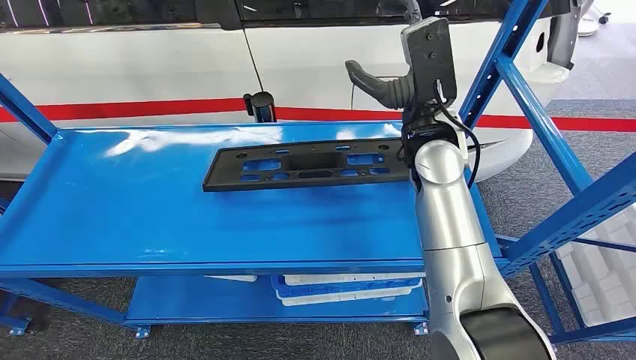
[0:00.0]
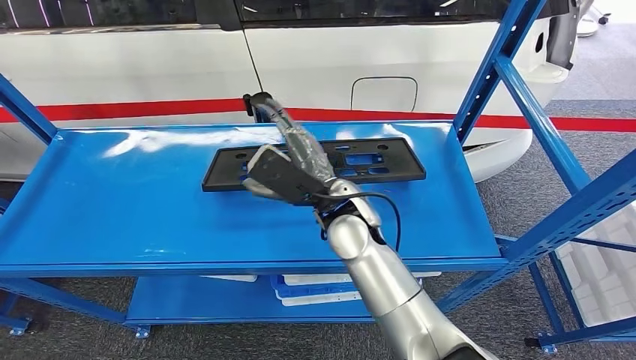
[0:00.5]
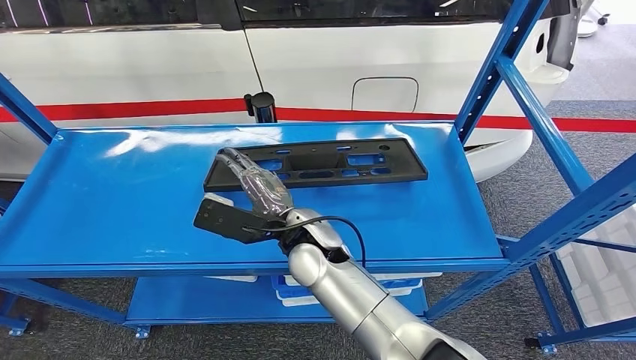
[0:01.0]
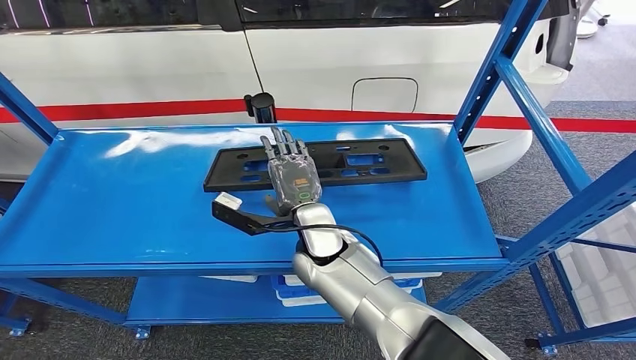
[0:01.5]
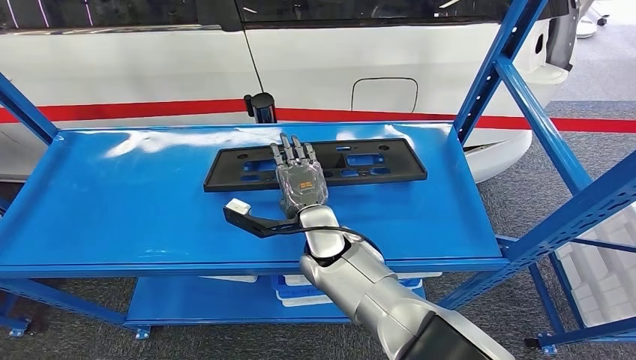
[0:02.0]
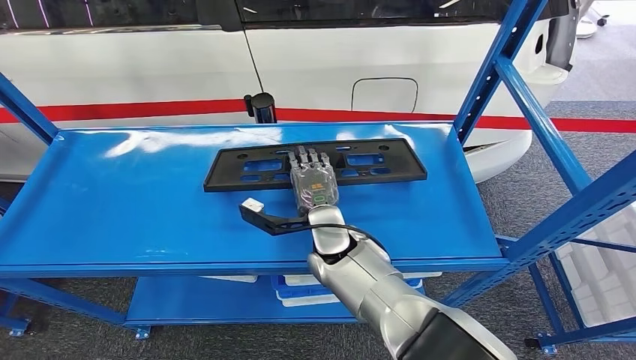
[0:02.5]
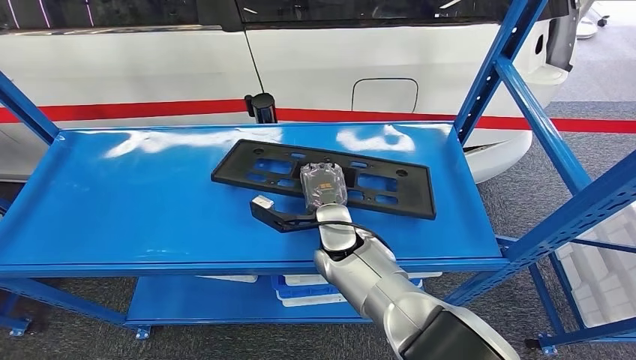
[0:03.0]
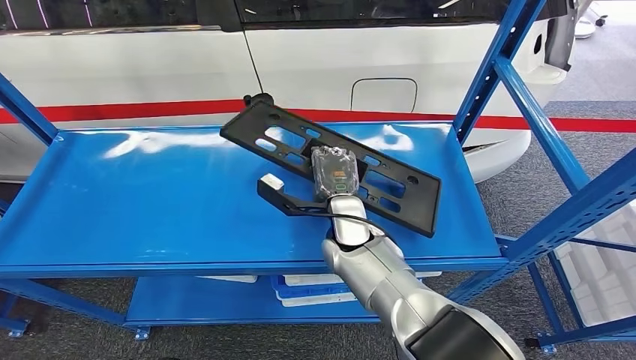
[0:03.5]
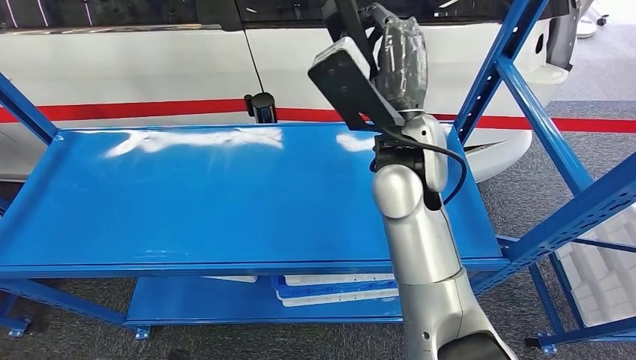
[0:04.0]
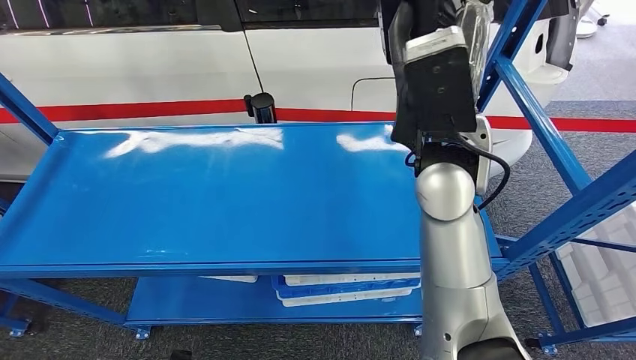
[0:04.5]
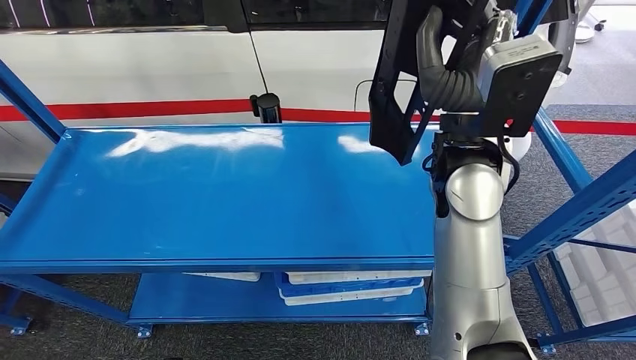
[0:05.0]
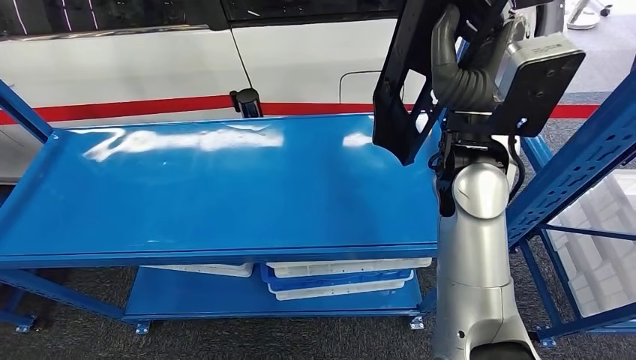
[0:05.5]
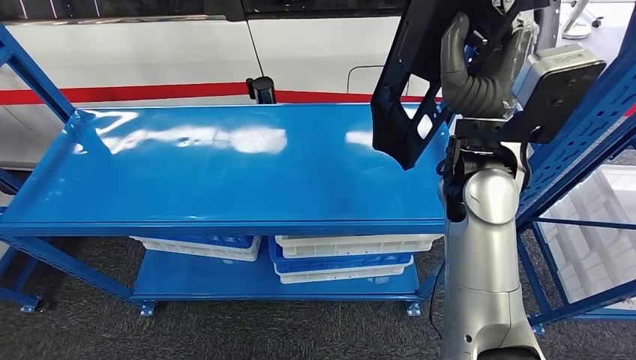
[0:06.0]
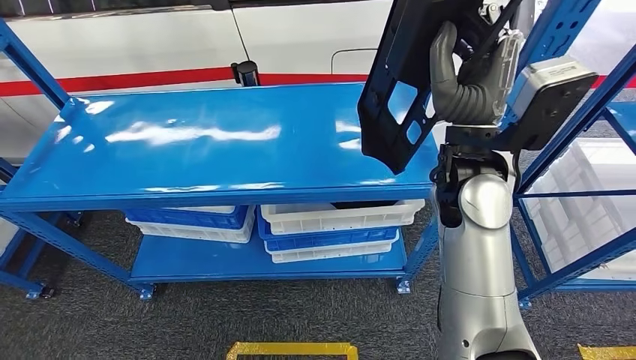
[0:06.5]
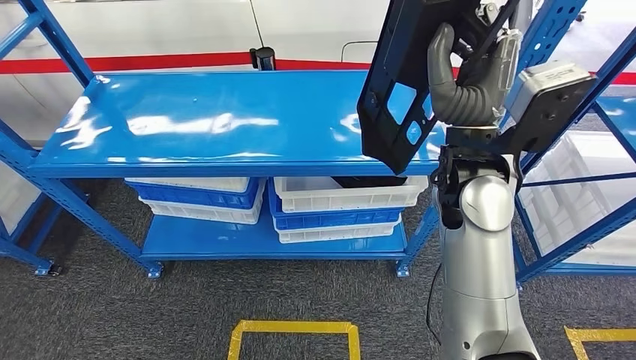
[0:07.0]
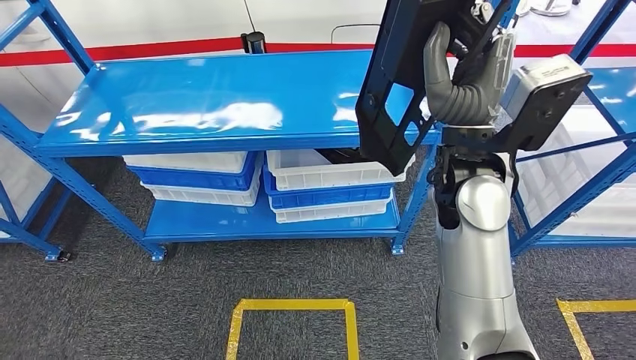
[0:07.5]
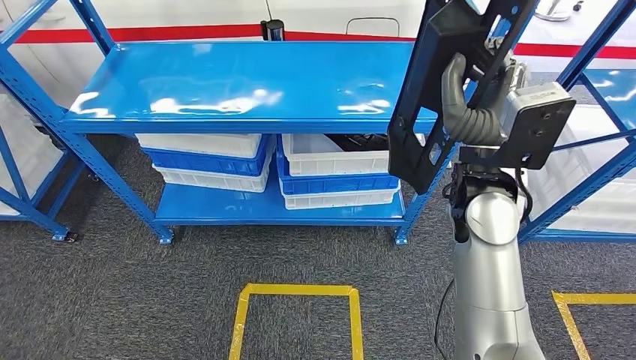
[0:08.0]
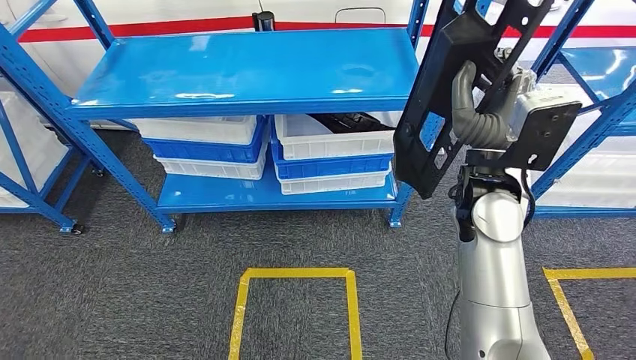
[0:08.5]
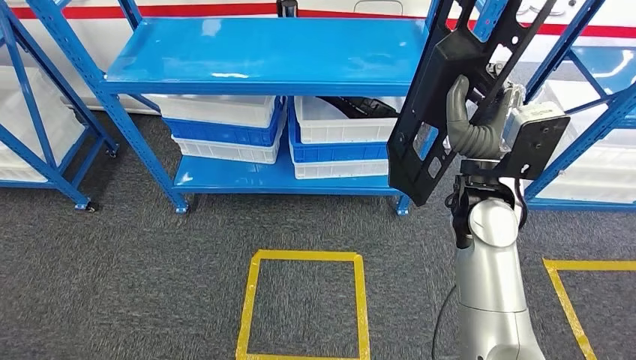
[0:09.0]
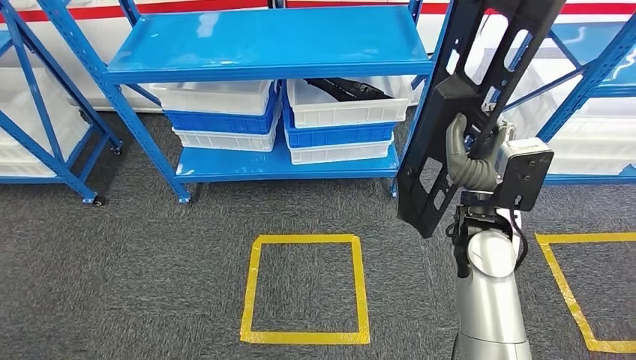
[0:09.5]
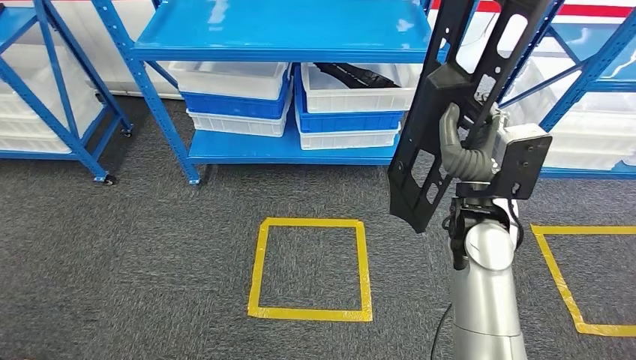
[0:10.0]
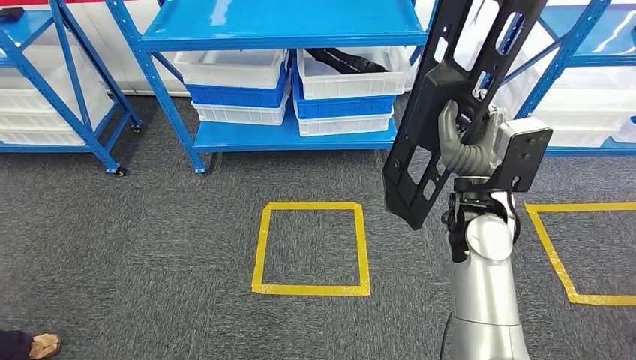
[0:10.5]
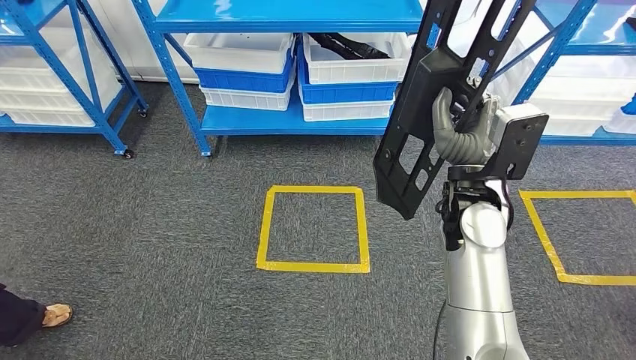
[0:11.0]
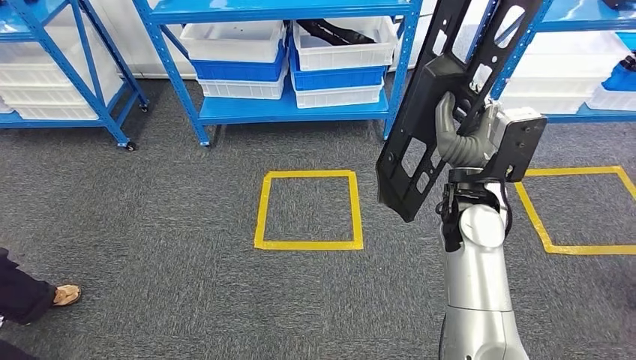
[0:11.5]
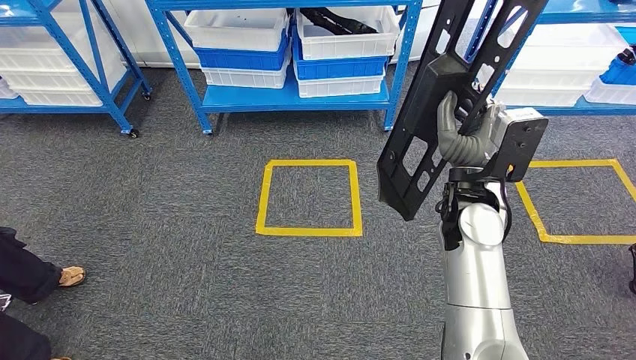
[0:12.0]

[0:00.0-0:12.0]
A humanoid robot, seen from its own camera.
Step, 0:00.0 to 0:04.0: Pick up the large material from the shelf.
0:02.0 to 0:04.0: The right hand is displaced upward by roughly 20 cm.

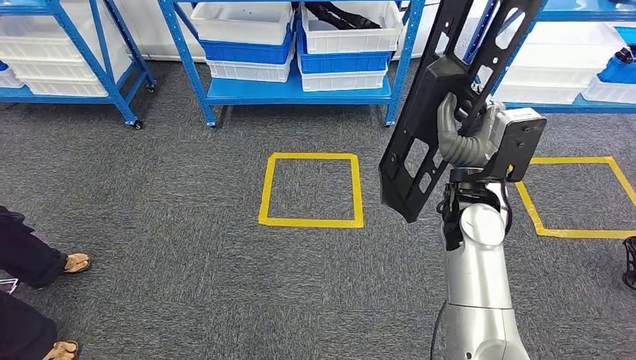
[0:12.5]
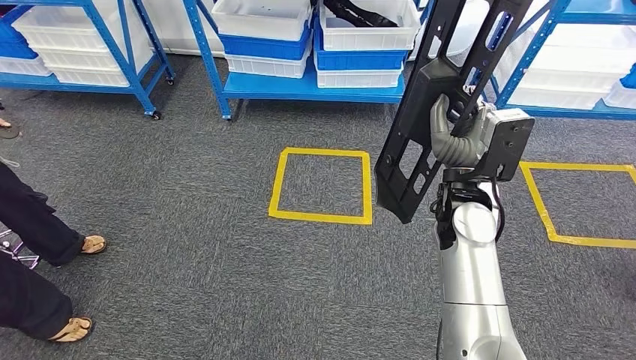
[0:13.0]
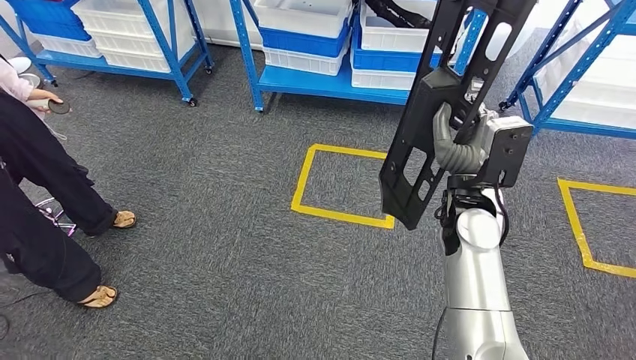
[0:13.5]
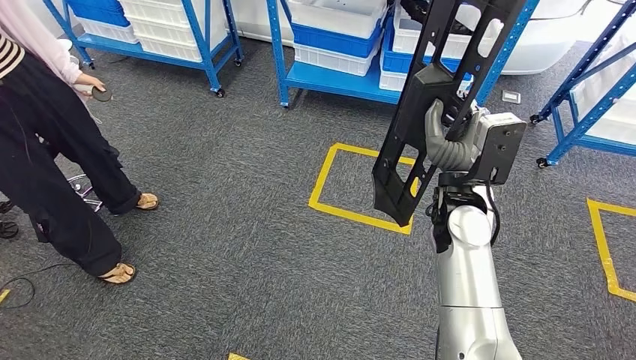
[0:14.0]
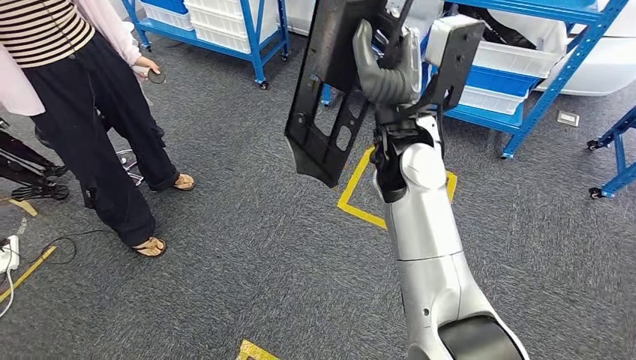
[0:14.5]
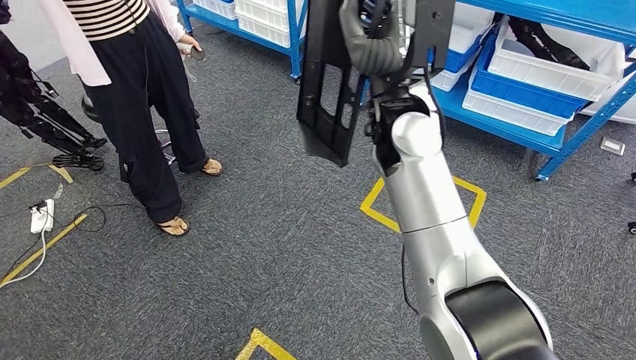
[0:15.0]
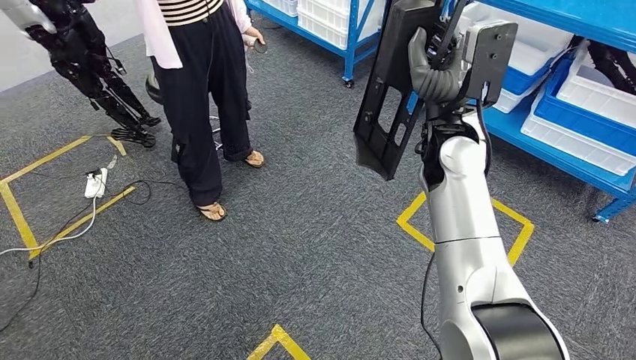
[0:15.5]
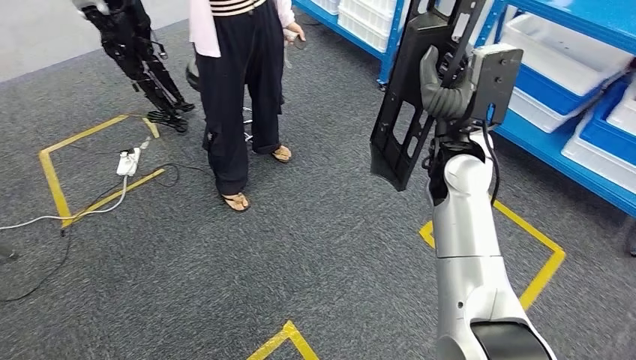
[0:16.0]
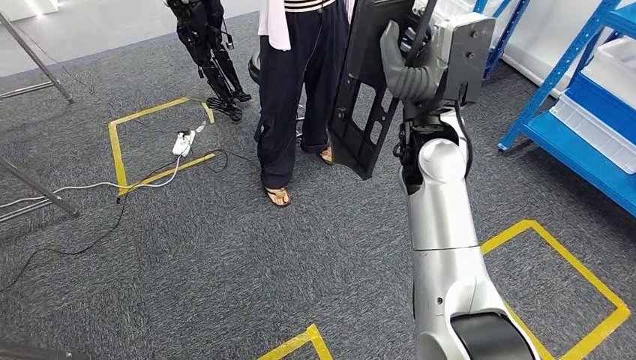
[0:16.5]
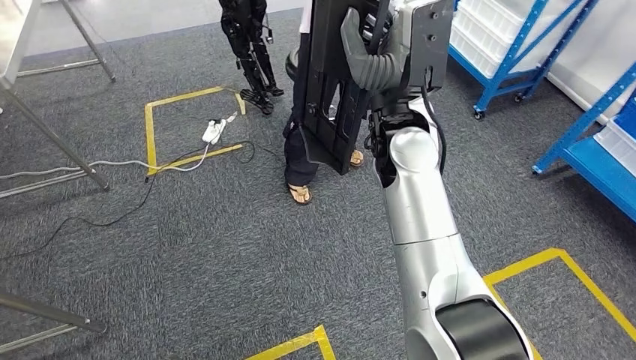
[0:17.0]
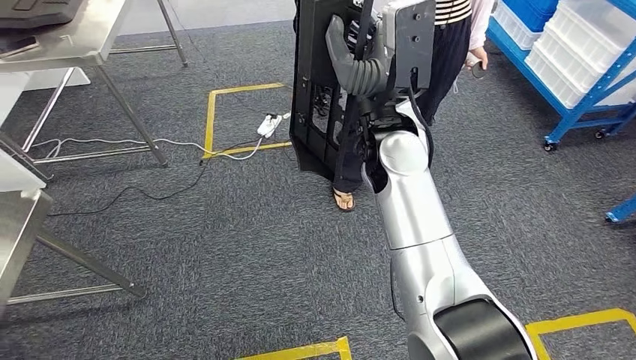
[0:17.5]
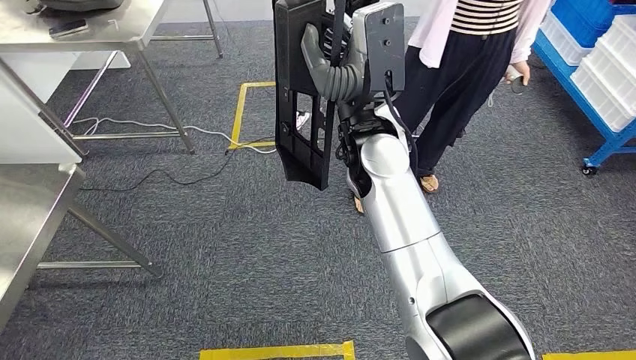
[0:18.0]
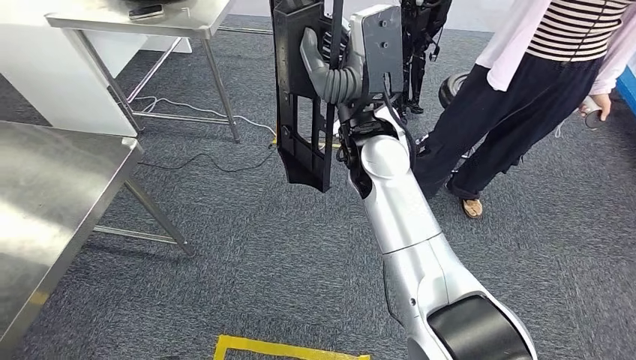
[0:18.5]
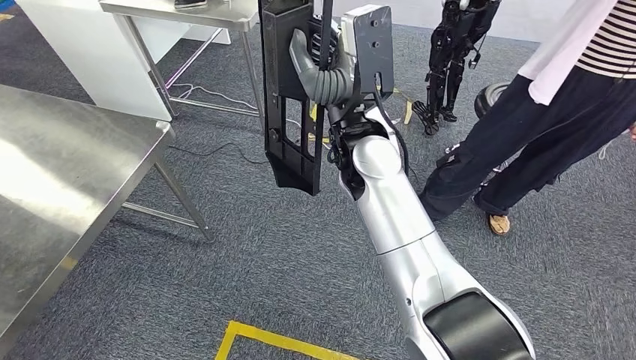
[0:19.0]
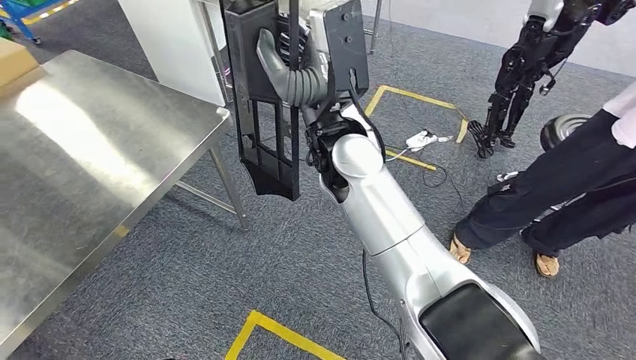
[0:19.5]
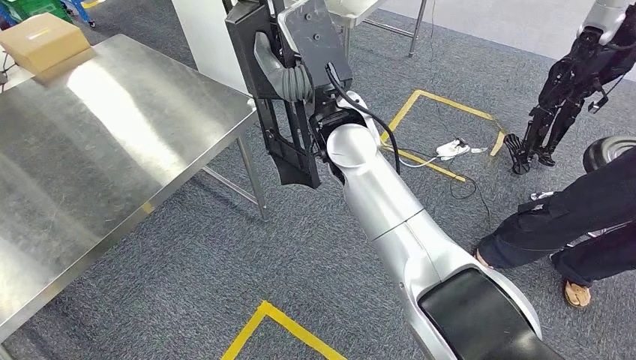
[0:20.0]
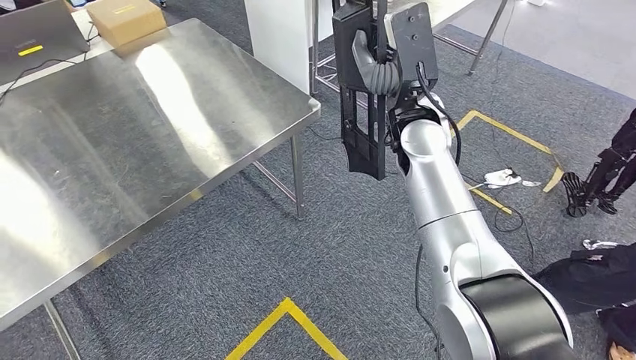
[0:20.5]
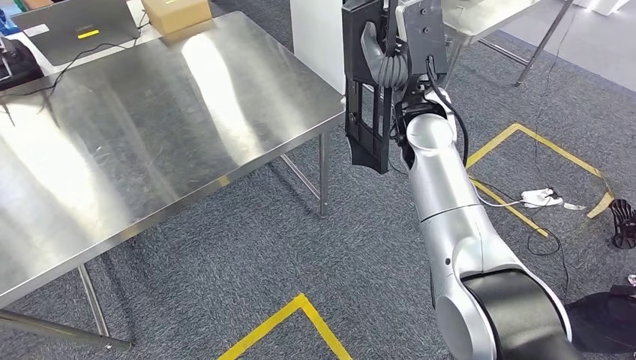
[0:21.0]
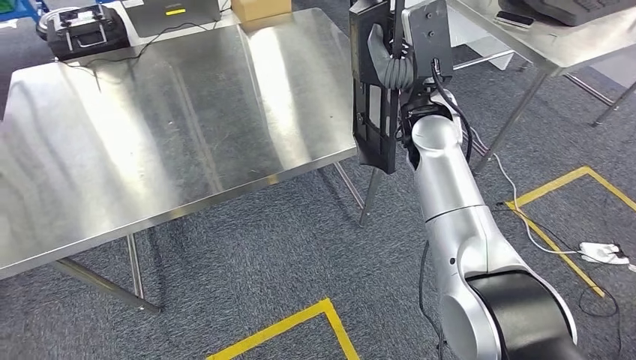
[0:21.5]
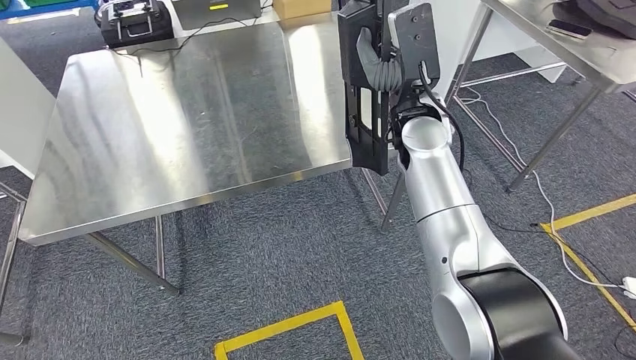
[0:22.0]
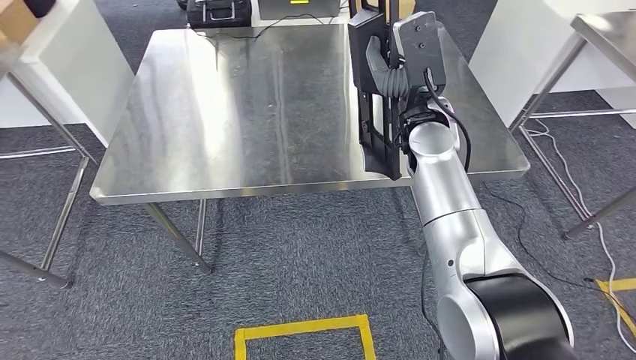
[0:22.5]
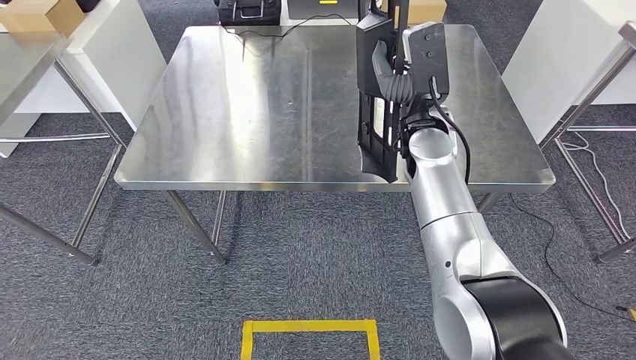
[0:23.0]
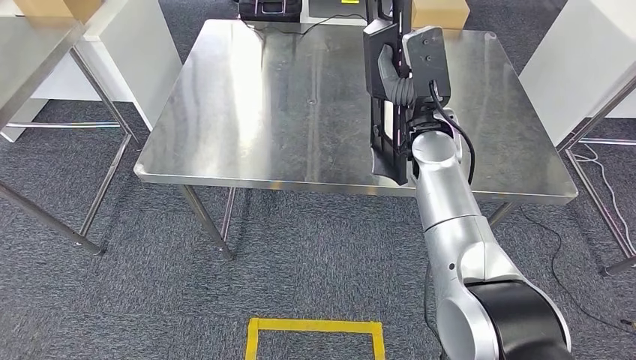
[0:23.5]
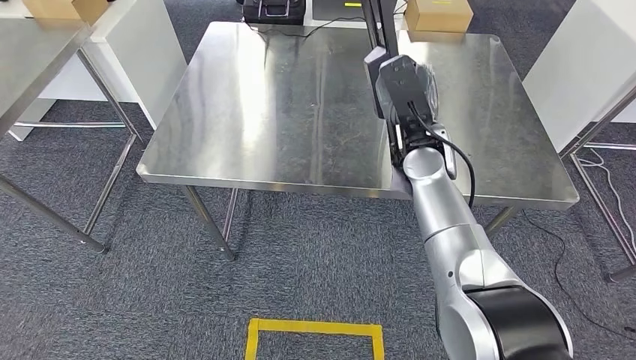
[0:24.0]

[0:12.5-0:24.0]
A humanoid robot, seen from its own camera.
Step, 0:12.5 to 0:21.5: Move the large material to the workbench.
